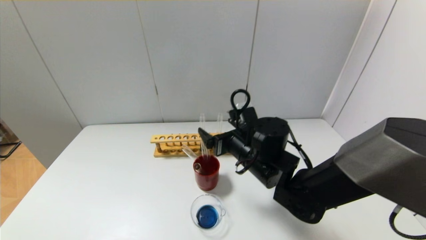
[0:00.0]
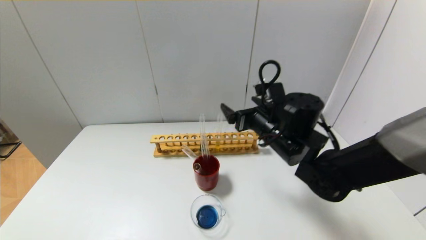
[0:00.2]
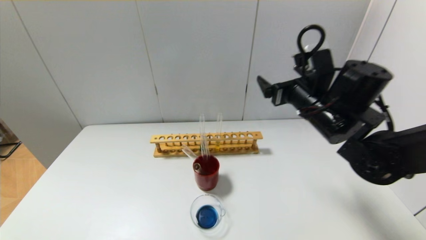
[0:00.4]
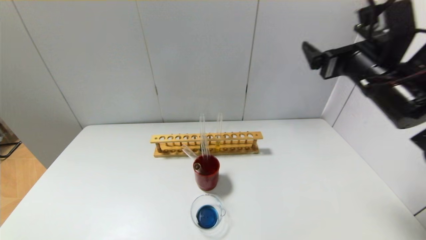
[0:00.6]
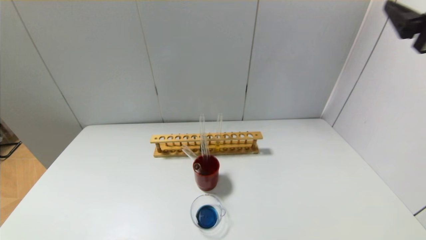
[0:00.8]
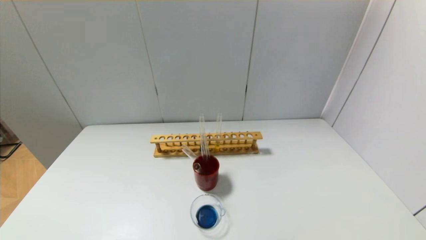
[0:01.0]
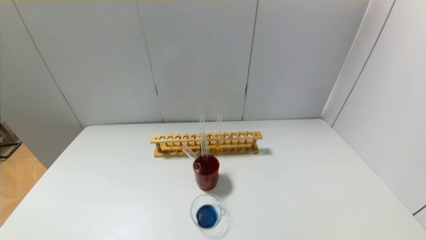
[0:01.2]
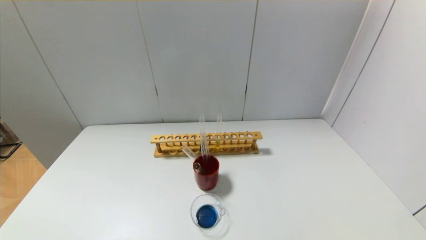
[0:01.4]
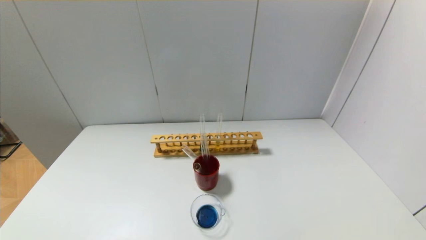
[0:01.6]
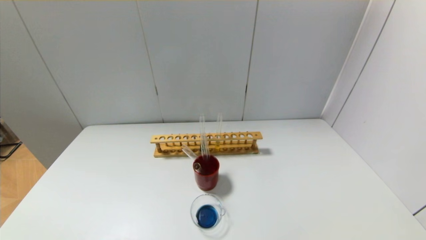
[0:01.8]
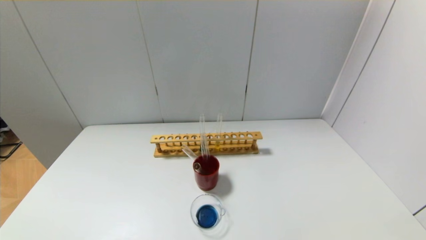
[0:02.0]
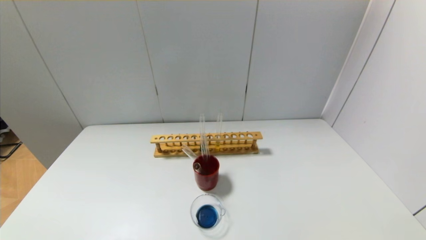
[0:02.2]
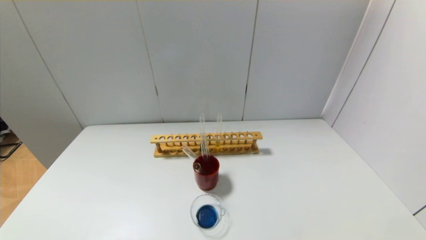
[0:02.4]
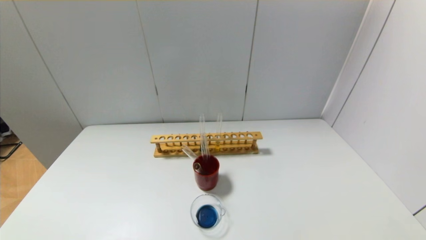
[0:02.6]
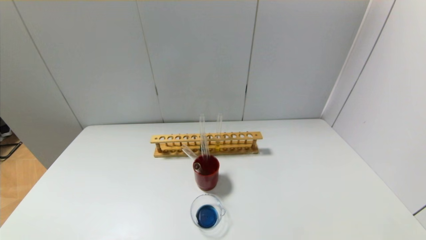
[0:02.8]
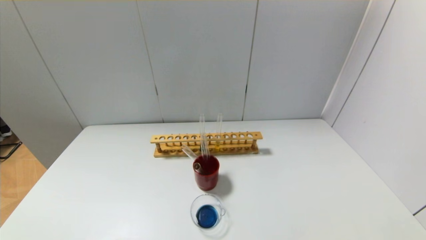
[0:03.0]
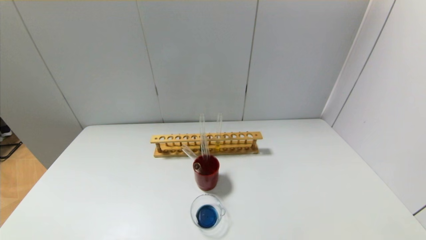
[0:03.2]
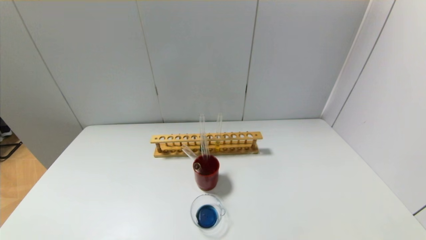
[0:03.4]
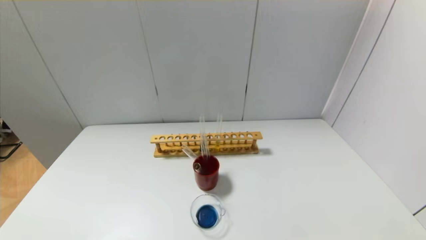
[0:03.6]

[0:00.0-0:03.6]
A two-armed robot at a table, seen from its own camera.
0:00.0 to 0:01.8: The right gripper goes roughly 50 cm backward and to the right.
